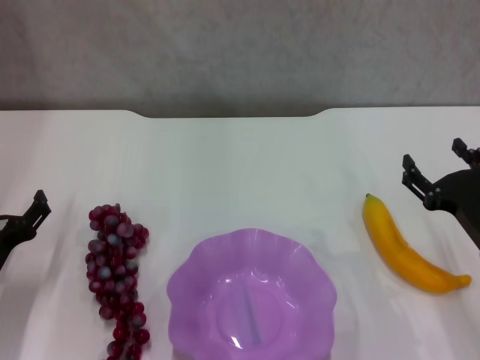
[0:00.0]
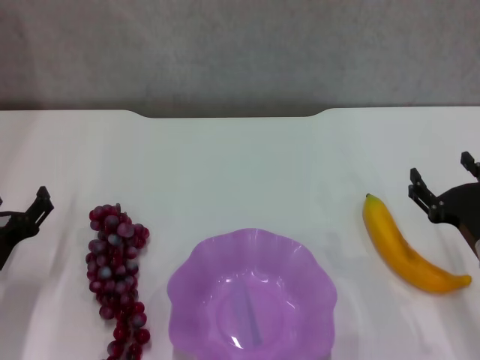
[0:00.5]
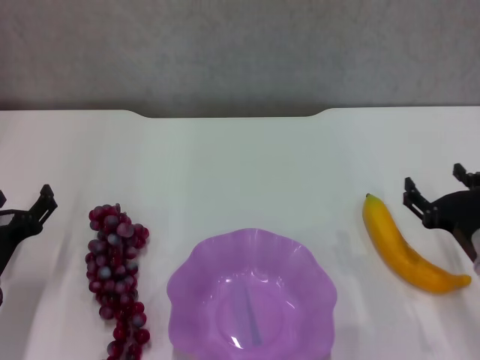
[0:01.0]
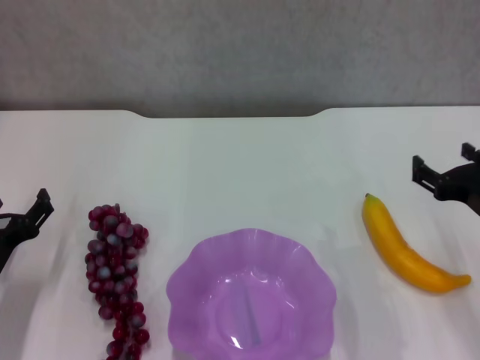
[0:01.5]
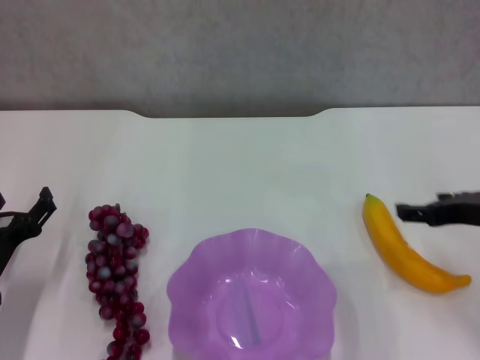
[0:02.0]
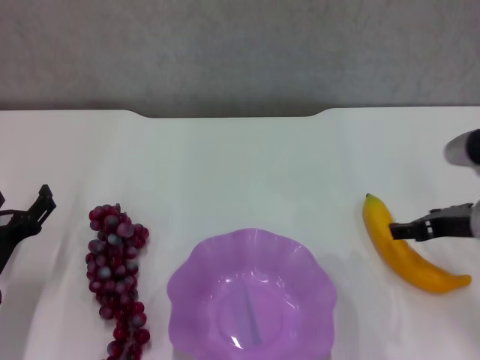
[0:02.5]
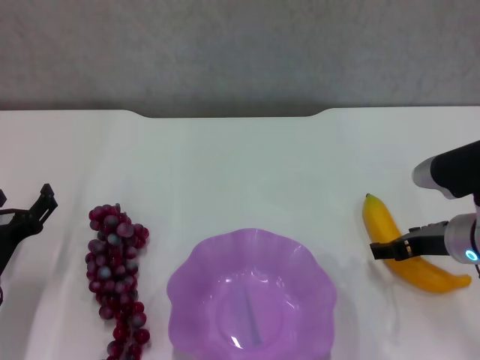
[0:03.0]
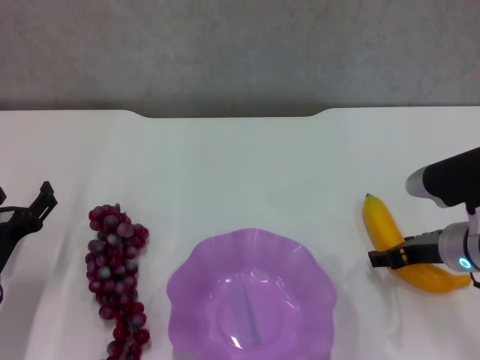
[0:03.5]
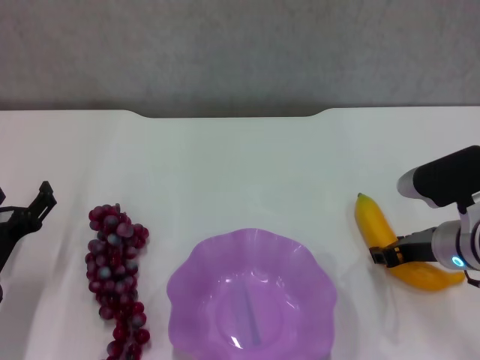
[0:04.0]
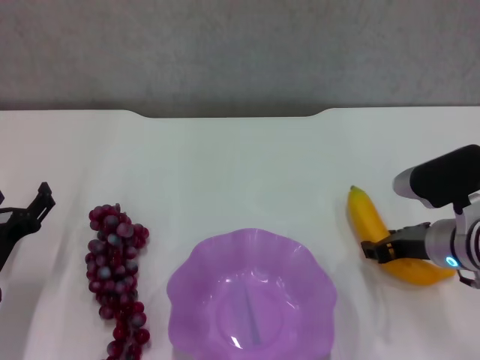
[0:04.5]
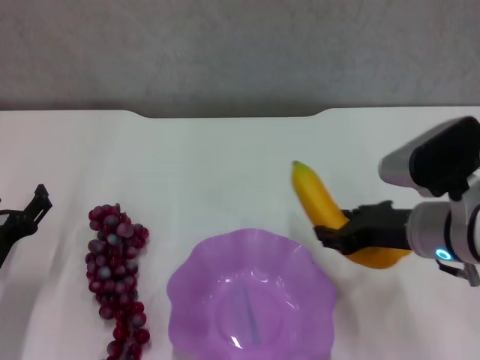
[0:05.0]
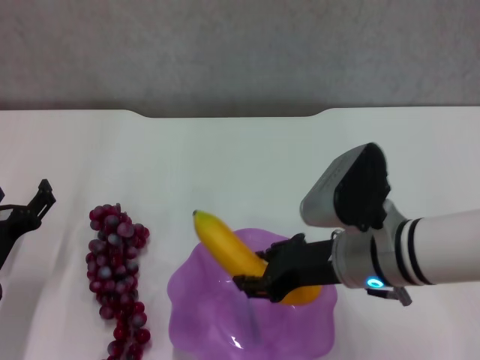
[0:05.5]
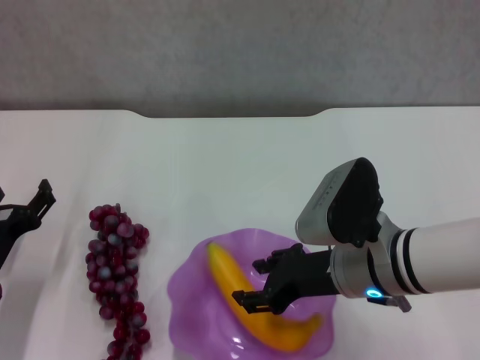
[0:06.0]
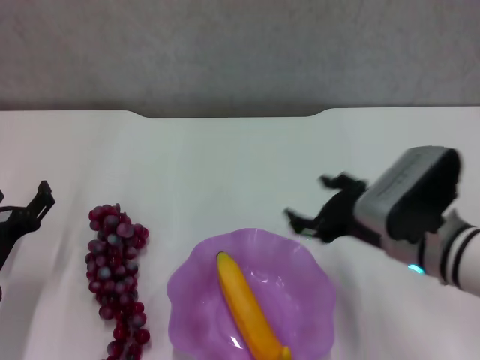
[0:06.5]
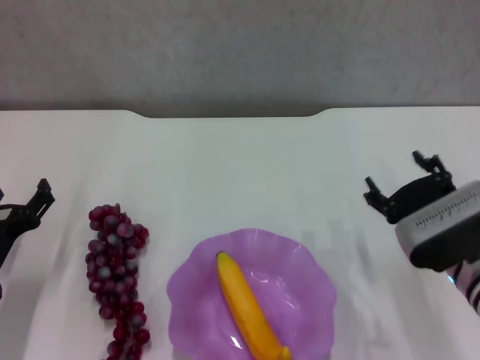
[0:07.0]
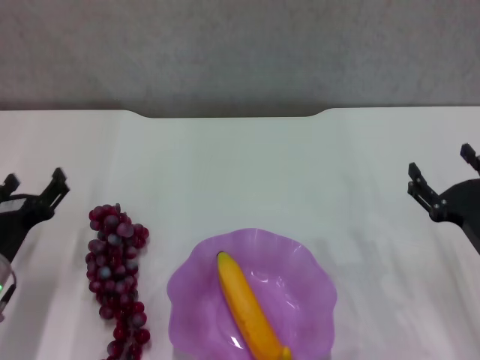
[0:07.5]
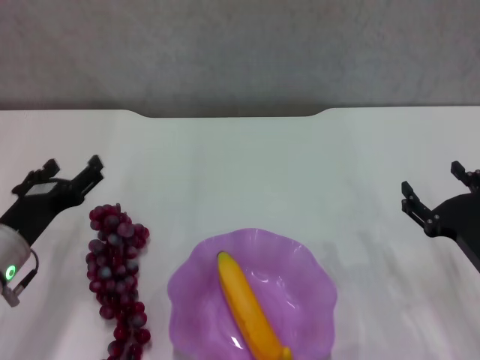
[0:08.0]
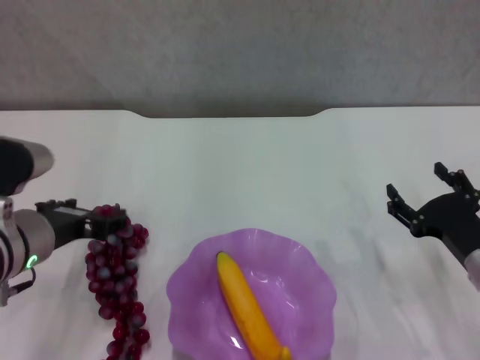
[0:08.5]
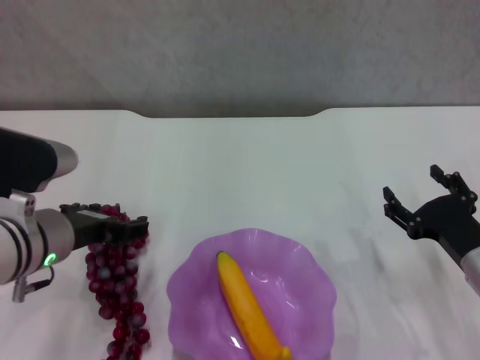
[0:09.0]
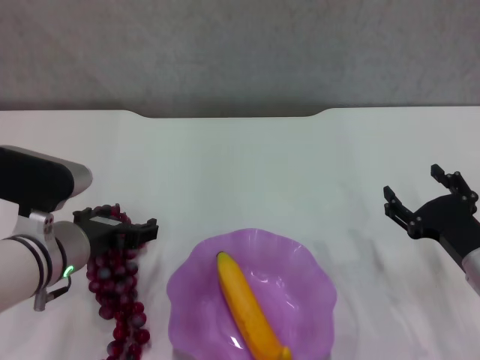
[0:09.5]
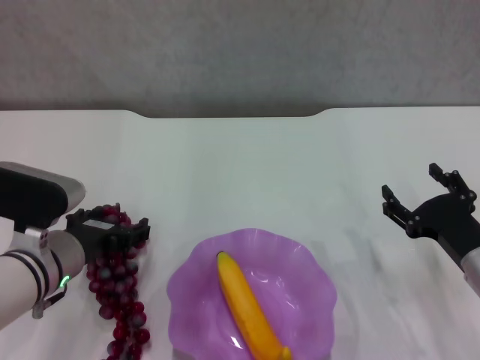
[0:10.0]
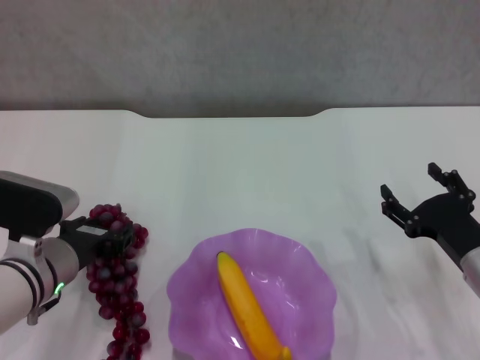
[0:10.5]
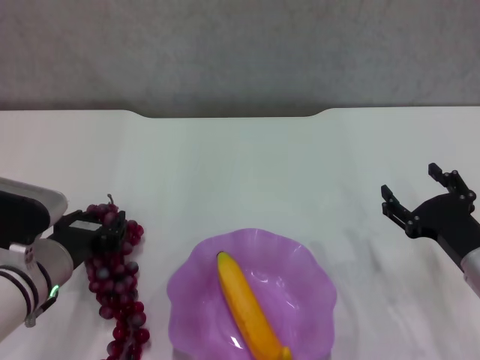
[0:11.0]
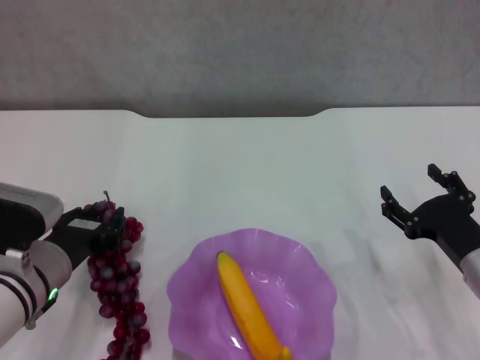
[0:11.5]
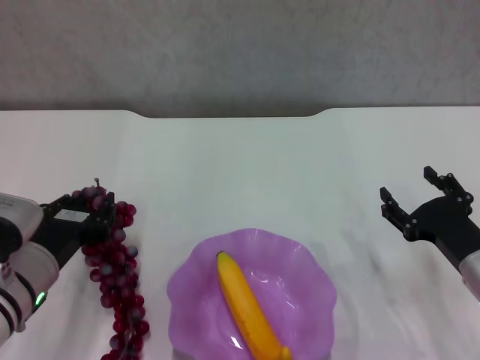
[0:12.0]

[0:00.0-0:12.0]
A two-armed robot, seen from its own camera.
Step, 0:00.0 to 0:04.0: Grasp the banana with right gripper.
Step, 0:04.5 to 0:06.0: Place the banana in the purple plate with right gripper.
Step, 0:06.5 to 0:10.5: Grasp the grape with left gripper.
0:00.0 to 0:02.0: The right gripper goes approximately 10 cm upward.
0:02.0 to 0:04.0: The right gripper shifts approximately 5 cm downward, and closes up.
0:04.0 to 0:06.0: The right gripper shifts about 10 cm to the left.
0:06.0 to 0:08.0: The right gripper shifts about 15 cm to the right and downward, and opens up, while the left gripper ends up some 5 cm from where it was.
0:08.0 to 0:10.0: The left gripper heads to the right, covering some 5 cm.
0:10.0 to 0:12.0: The left gripper closes its fingers.

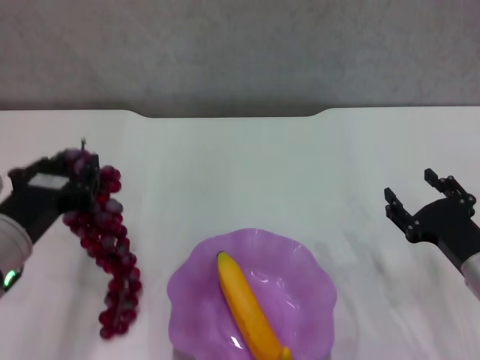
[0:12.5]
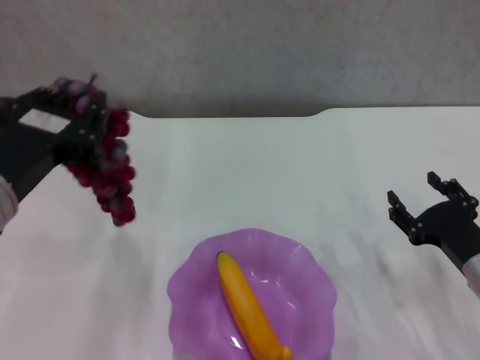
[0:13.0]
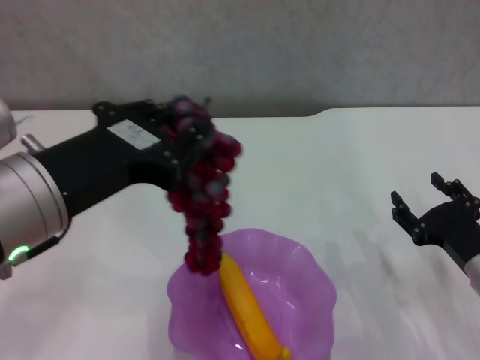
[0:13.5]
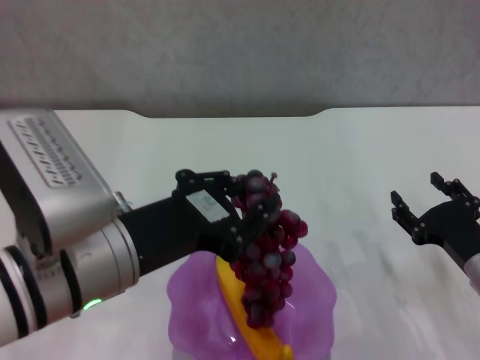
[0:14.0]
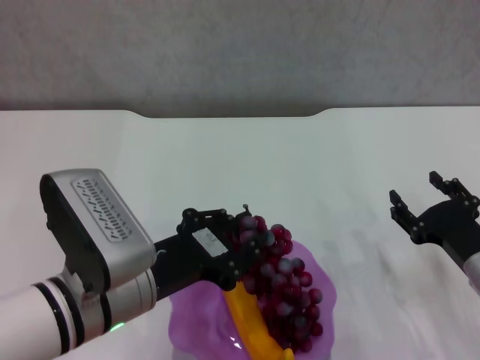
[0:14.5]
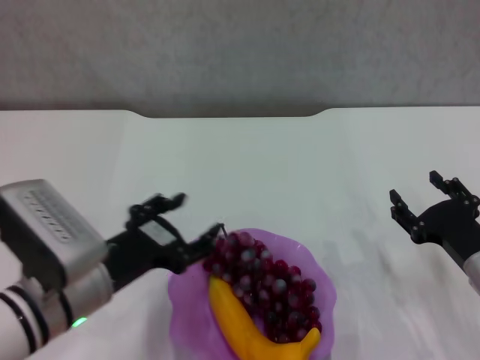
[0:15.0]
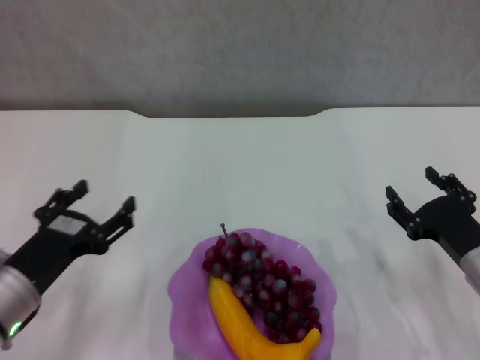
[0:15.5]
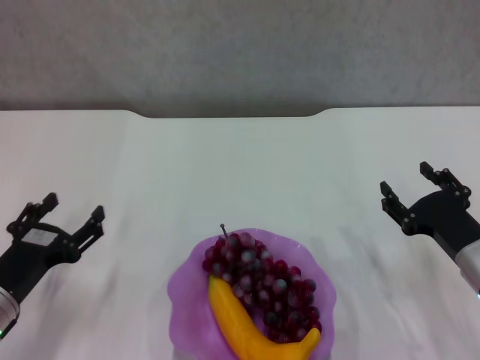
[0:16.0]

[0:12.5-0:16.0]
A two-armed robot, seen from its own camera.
Step, 0:12.5 to 0:14.5: Place the grape in the purple plate with left gripper.
0:12.5 to 0:14.5: The left gripper goes about 10 cm to the right, and goes upward and returns, roughly 10 cm each way.
0:14.5 to 0:16.0: The left gripper shifts roughly 15 cm to the left and downward, and opens.

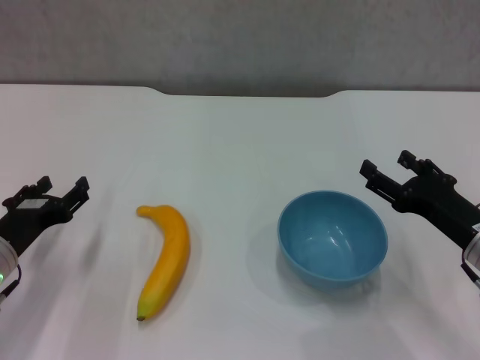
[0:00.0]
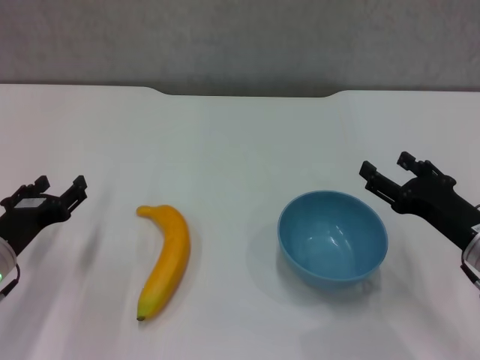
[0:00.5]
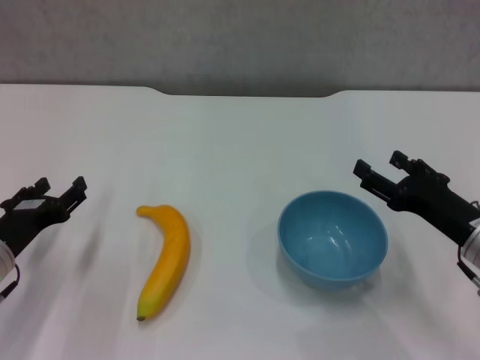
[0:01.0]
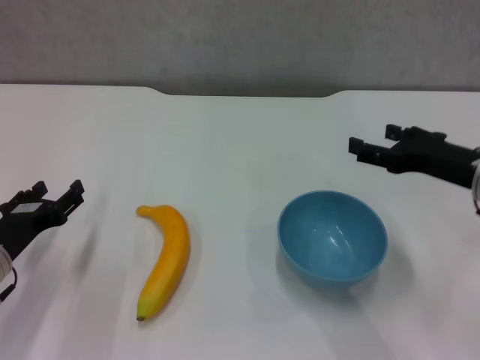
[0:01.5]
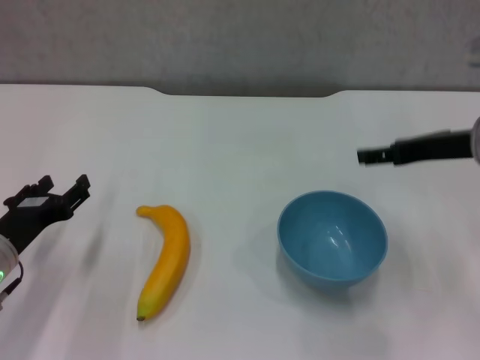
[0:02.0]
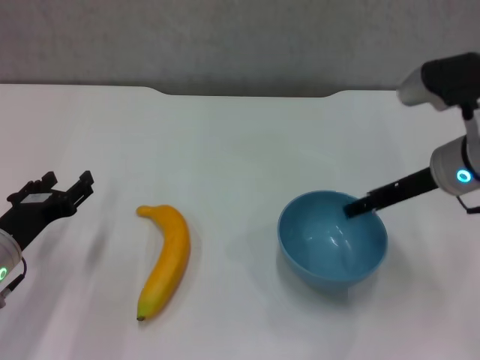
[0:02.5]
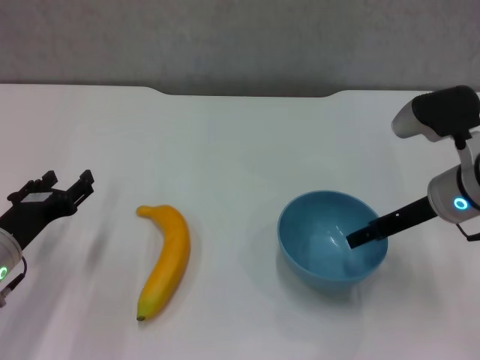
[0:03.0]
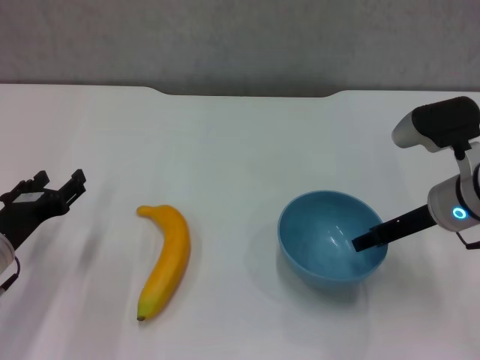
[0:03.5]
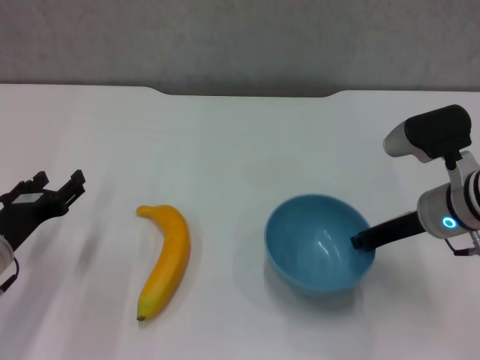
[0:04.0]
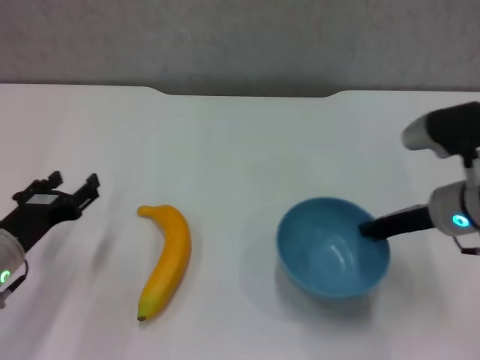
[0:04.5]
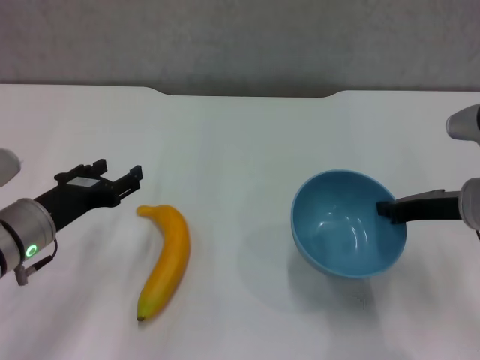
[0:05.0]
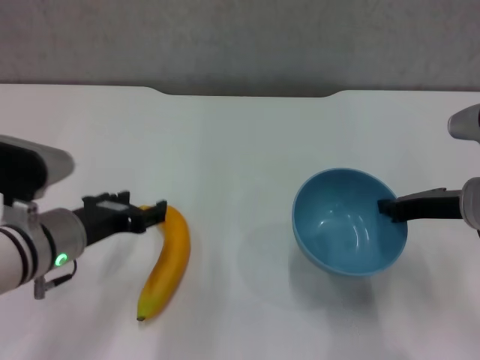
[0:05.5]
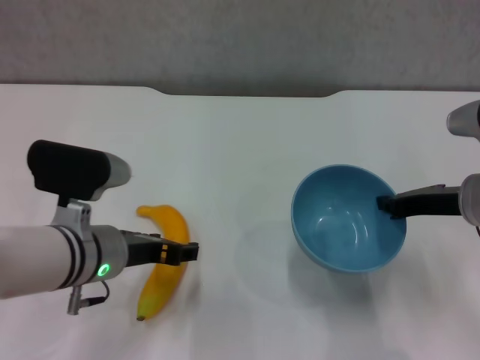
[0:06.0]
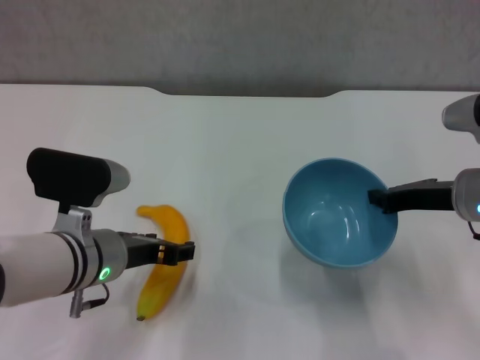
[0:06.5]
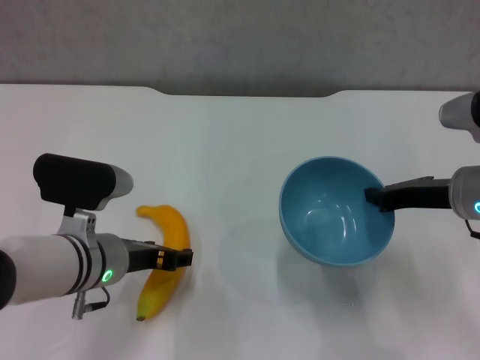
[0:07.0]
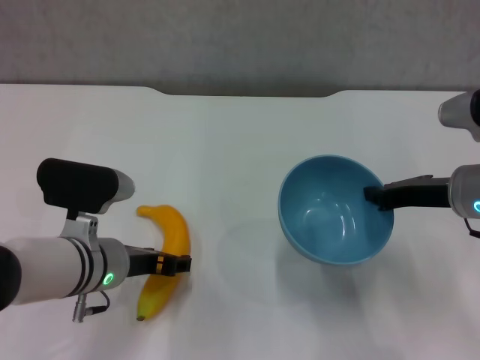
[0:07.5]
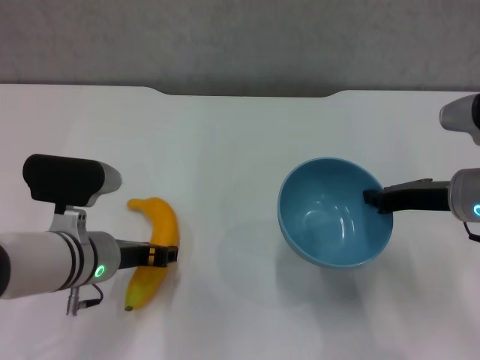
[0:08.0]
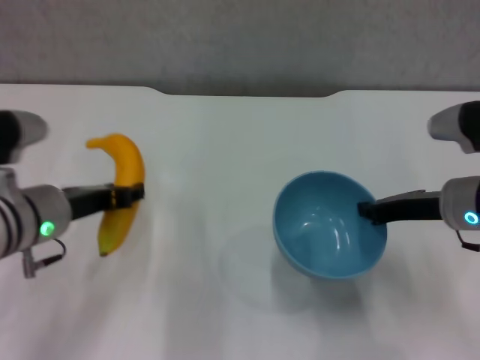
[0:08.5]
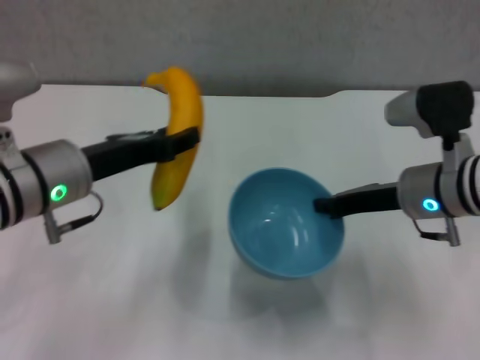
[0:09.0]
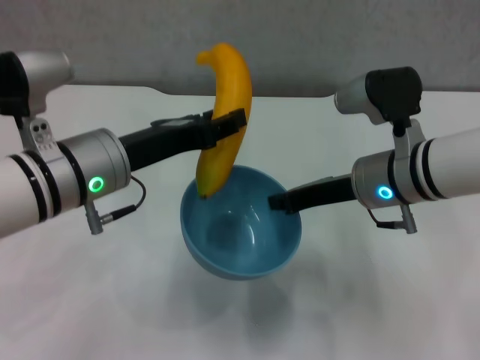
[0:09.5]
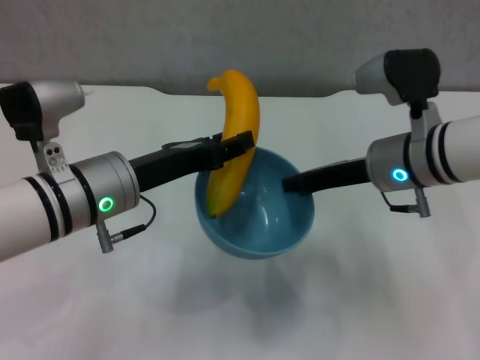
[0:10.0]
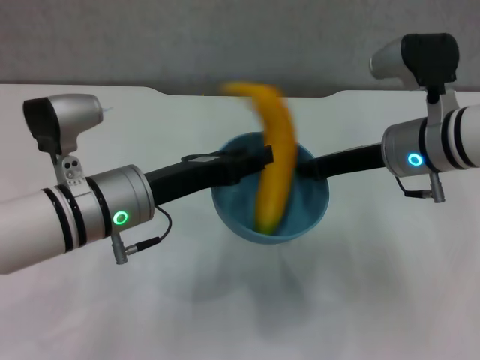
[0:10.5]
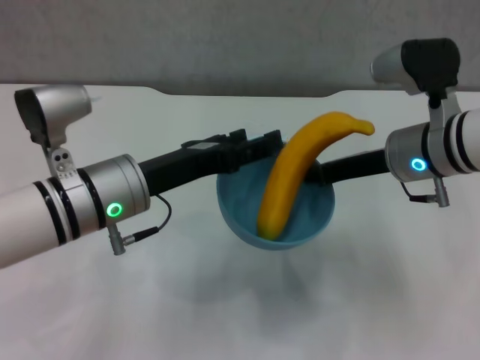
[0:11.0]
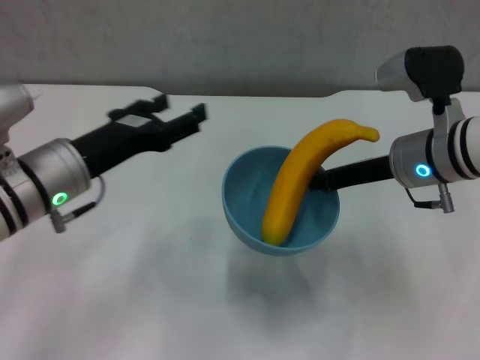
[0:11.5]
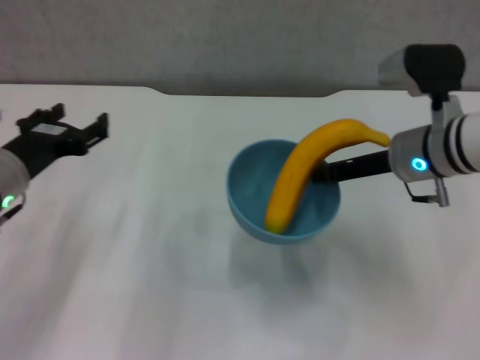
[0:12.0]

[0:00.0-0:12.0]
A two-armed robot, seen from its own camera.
Step, 0:00.0 to 0:04.0: Grasp the blue bowl with right gripper.
Step, 0:05.0 to 0:07.5: Grasp the banana with left gripper.
Step, 0:08.0 to 0:10.5: Place the banana in the blue bowl with left gripper.
0:00.0 to 0:02.0: The right gripper moves upward and forward, roughly 15 cm.
0:02.0 to 0:04.0: The right gripper travels downward by some 10 cm, and closes up.
0:04.0 to 0:06.0: The left gripper travels to the right and upward by approximately 15 cm.
0:06.0 to 0:08.0: The left gripper closes.
0:08.0 to 0:10.0: The left gripper goes some 10 cm upward. The right gripper is displaced to the left by about 10 cm.
0:10.0 to 0:12.0: The left gripper travels to the left by roughly 10 cm, and opens.
